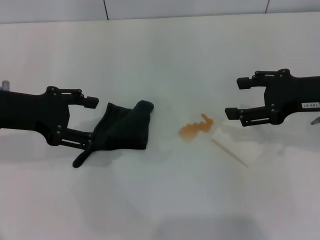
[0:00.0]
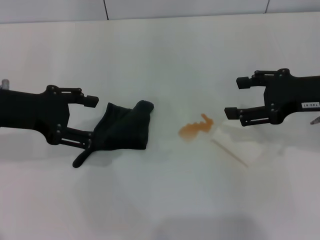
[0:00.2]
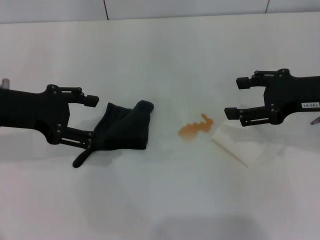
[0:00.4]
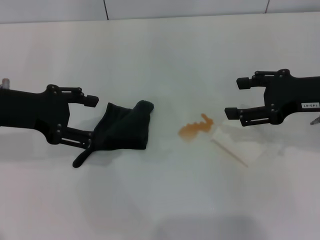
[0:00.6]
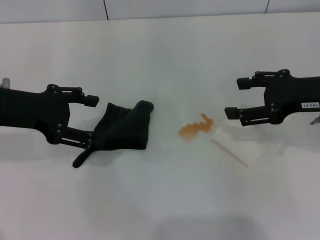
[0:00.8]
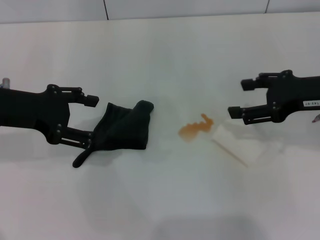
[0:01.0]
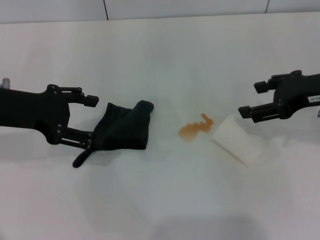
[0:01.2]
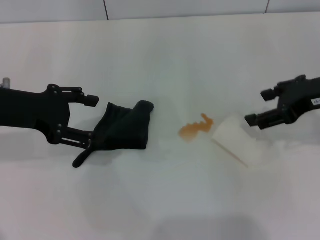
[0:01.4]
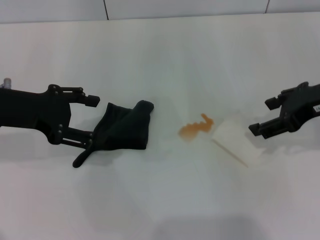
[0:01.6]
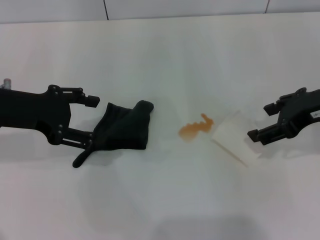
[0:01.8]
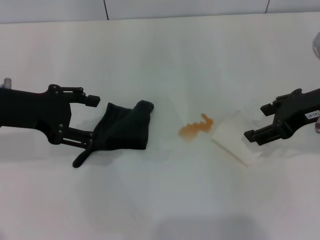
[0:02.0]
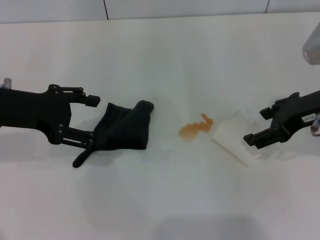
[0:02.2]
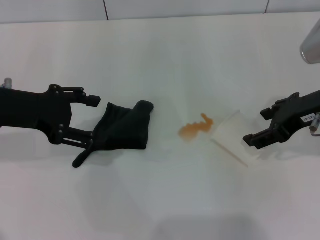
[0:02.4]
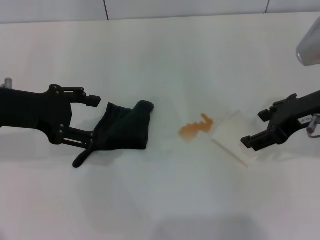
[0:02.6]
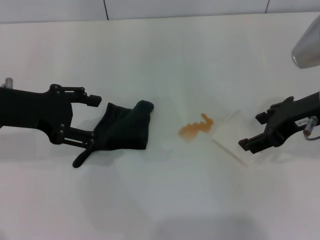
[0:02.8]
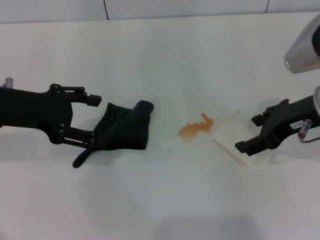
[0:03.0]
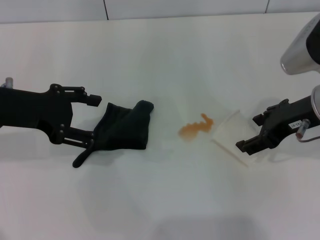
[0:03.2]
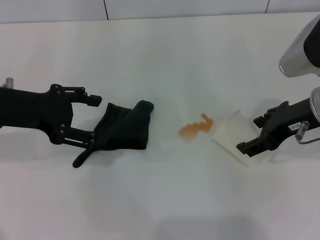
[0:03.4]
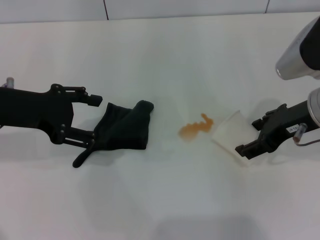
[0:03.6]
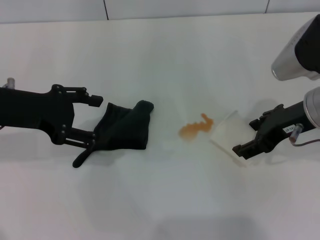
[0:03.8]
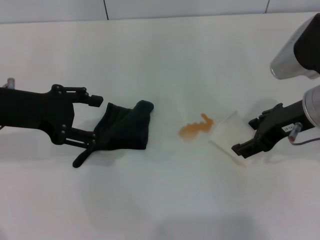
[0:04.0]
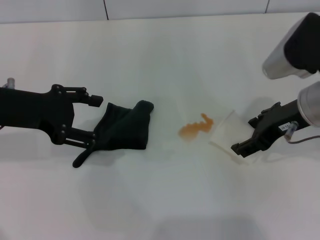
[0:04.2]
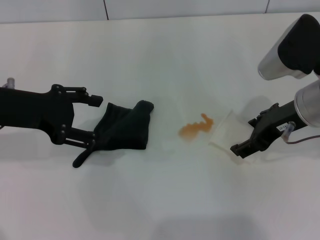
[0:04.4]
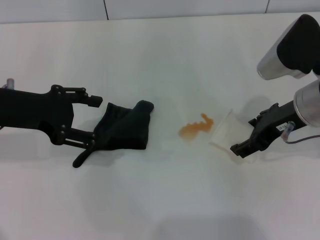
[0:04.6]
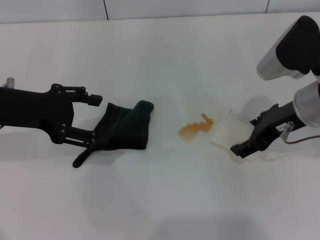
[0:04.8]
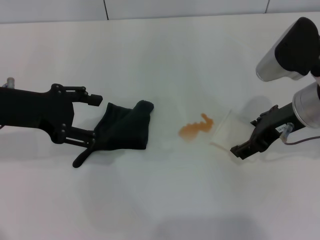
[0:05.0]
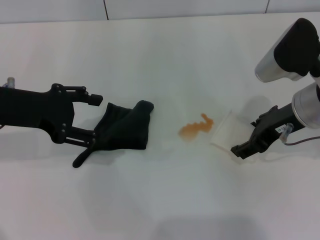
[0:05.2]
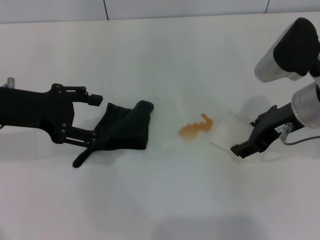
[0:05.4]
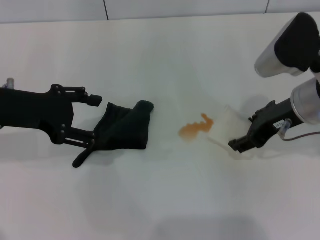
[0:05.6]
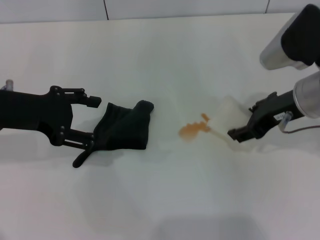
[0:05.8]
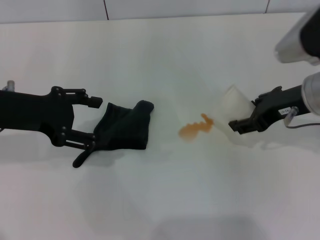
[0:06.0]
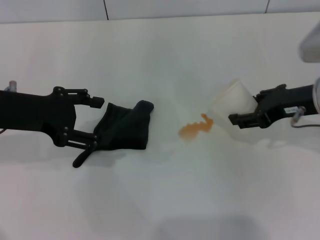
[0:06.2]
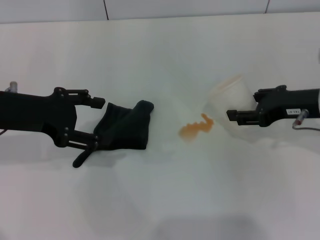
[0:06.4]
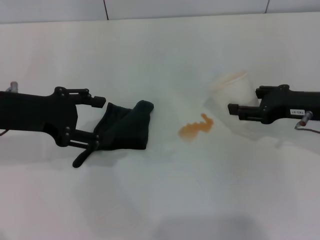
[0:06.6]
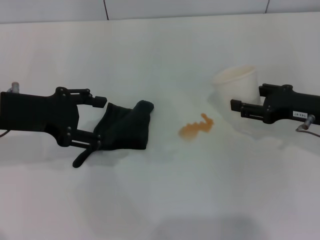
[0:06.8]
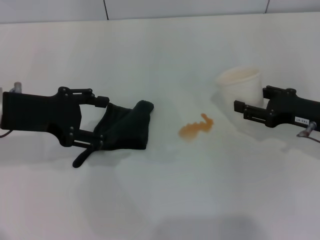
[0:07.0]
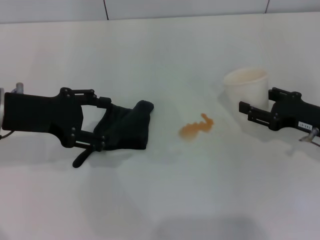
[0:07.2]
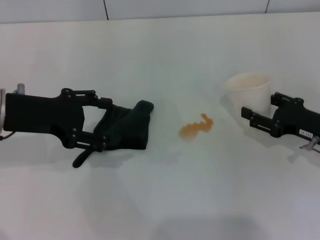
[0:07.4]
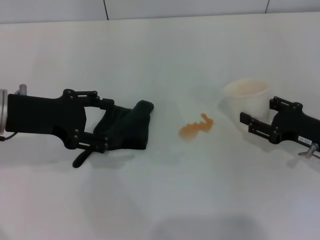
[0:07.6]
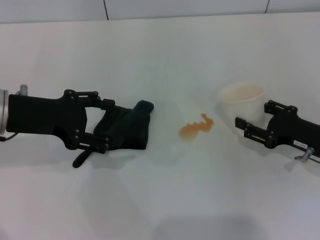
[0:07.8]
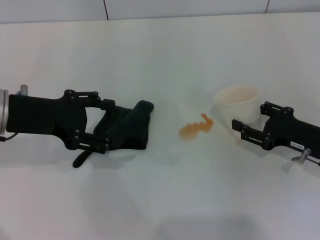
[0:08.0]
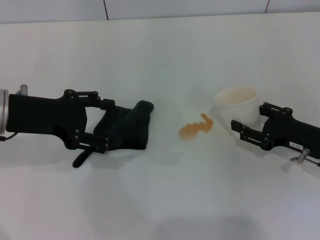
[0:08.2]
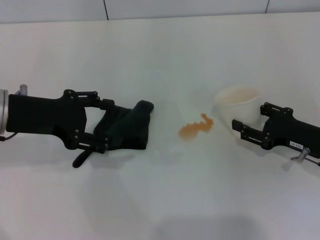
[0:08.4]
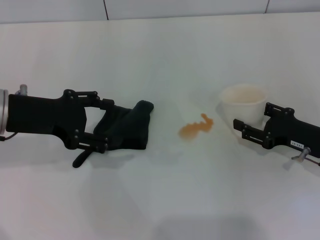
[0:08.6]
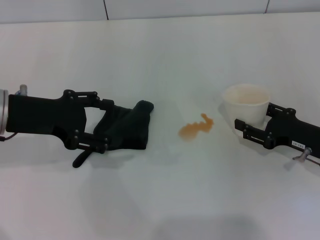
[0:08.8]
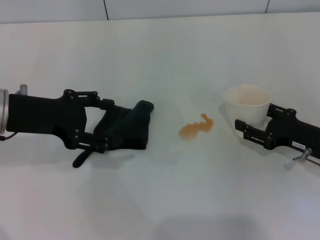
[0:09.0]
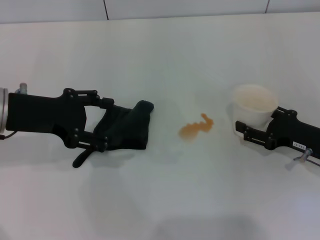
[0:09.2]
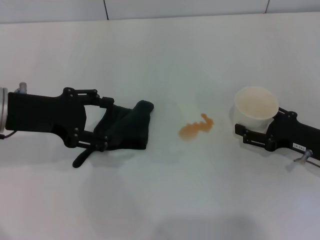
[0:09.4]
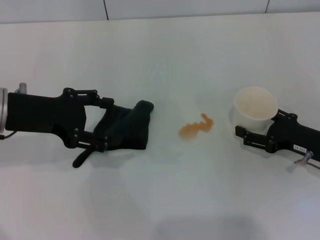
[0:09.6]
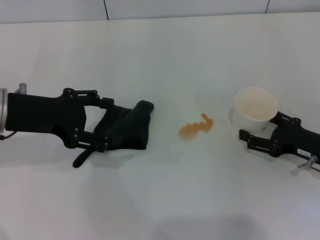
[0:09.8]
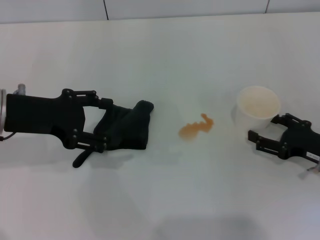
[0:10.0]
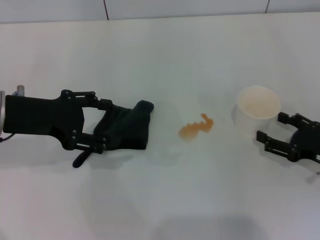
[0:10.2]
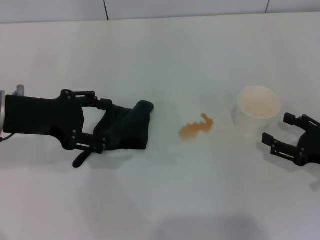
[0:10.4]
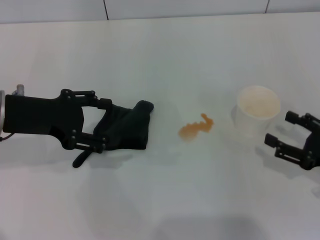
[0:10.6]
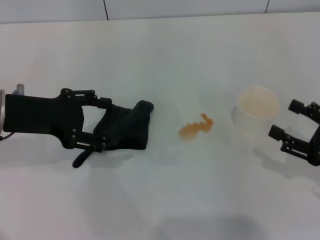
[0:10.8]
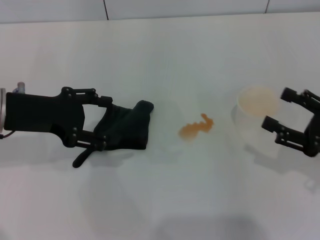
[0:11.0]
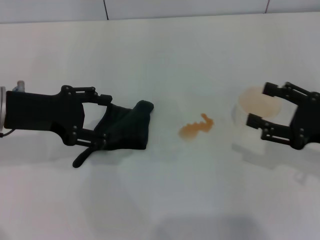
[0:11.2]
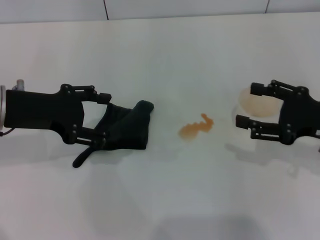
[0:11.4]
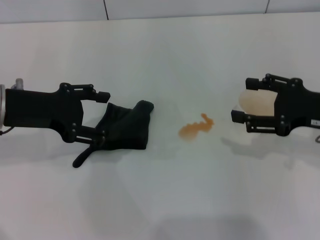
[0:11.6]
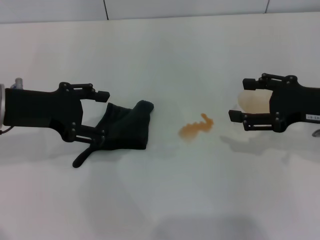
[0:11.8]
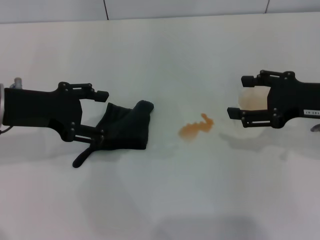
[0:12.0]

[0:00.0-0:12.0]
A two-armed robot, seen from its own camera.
Step, 0:00.0 to 0:05.2: Grasp the paper cup with the right gripper.
Step, 0:05.4 to 0:10.2: Stand the paper cup upright with the right gripper.
0:01.6 to 0:03.0: The grippers stay close to where they were, moving slightly.
0:03.0 to 0:04.4: There are only small adjustments of the grippers.
0:04.4 to 0:06.0: The right gripper closes.
0:06.0 to 0:07.6: The right gripper shifts some 15 cm downward and to the right.
0:07.6 to 0:09.0: Neither gripper changes place.
0:09.0 to 0:10.4: The right gripper shifts by about 5 cm, and opens up.
0:10.4 to 0:12.0: The right gripper heads upward, forward and to the left, covering roughly 15 cm.

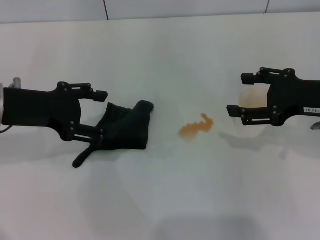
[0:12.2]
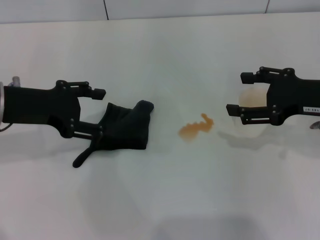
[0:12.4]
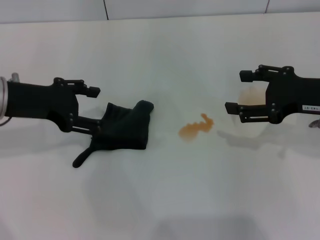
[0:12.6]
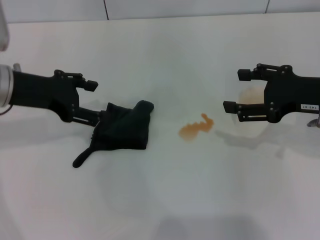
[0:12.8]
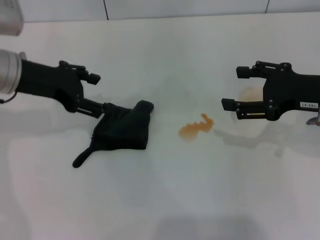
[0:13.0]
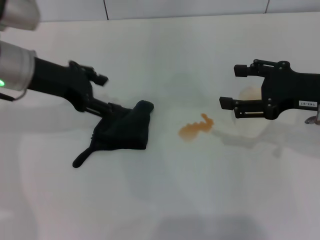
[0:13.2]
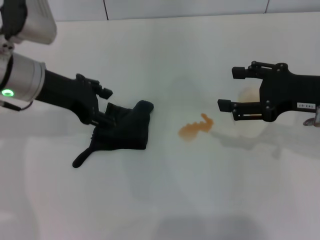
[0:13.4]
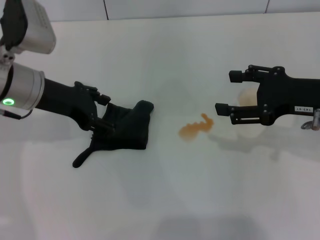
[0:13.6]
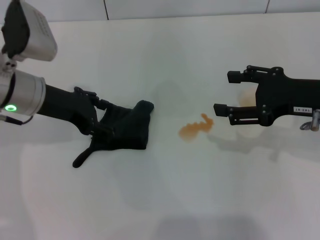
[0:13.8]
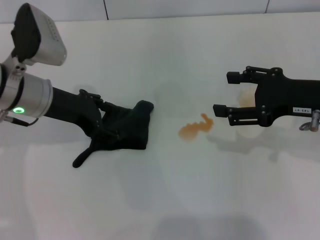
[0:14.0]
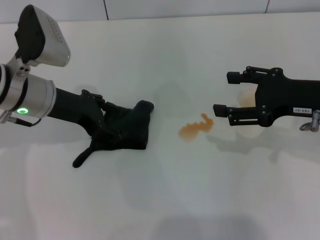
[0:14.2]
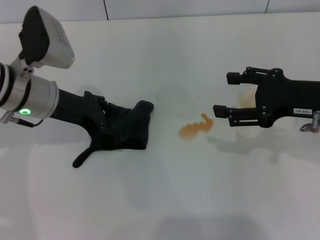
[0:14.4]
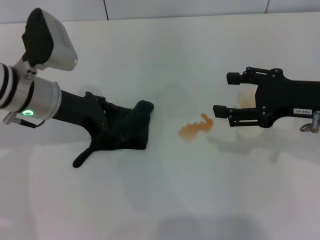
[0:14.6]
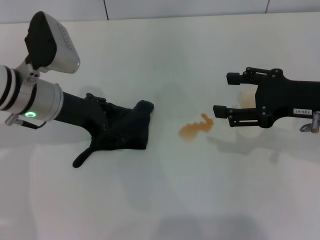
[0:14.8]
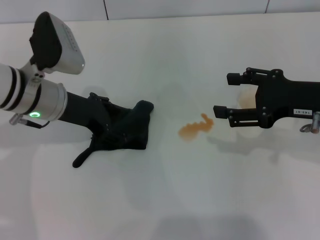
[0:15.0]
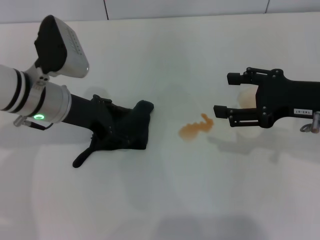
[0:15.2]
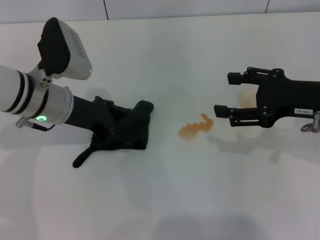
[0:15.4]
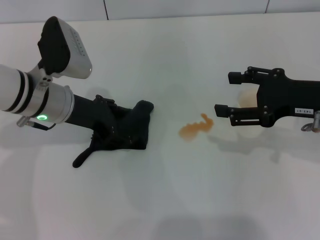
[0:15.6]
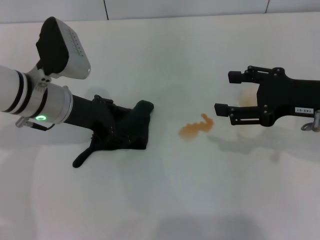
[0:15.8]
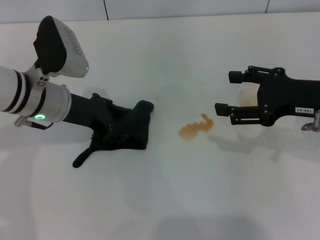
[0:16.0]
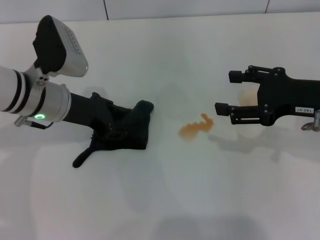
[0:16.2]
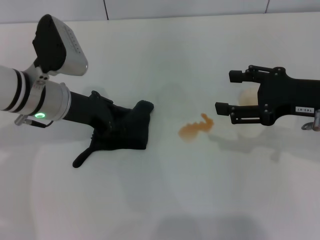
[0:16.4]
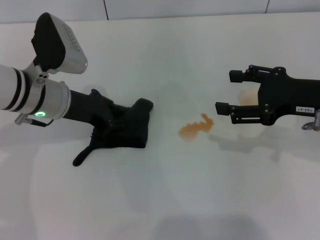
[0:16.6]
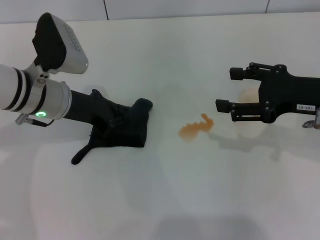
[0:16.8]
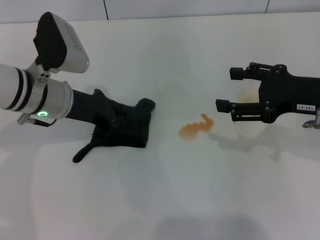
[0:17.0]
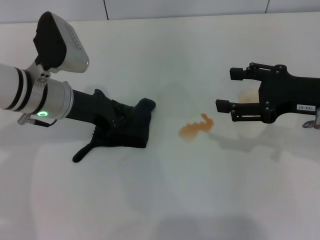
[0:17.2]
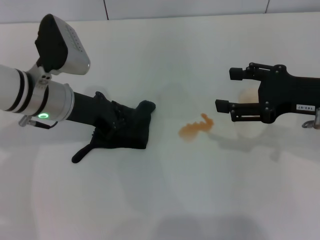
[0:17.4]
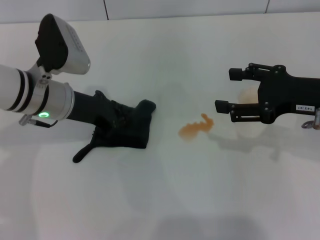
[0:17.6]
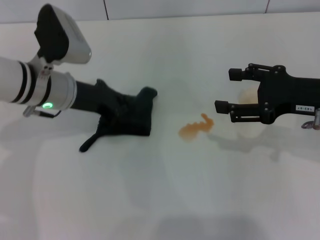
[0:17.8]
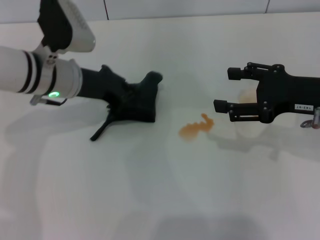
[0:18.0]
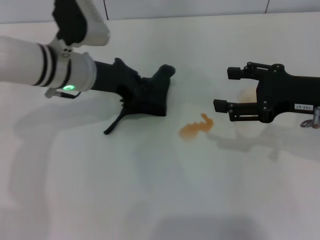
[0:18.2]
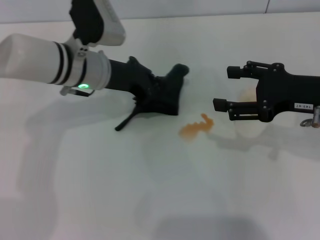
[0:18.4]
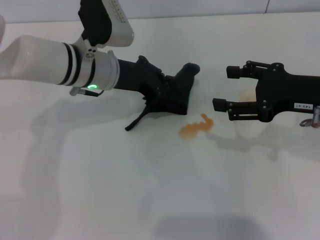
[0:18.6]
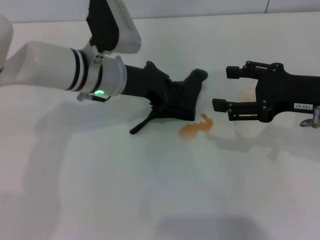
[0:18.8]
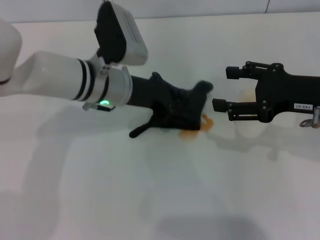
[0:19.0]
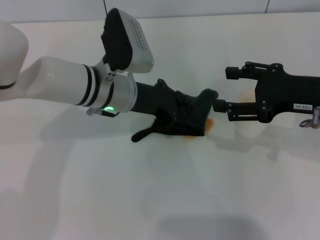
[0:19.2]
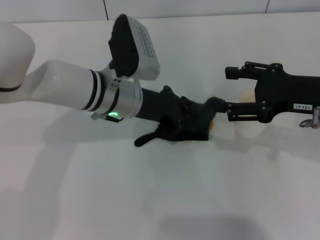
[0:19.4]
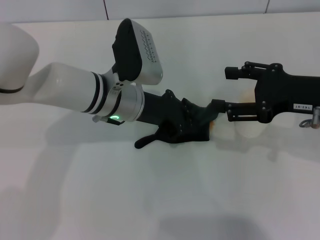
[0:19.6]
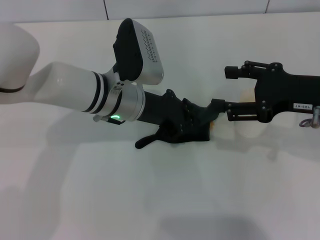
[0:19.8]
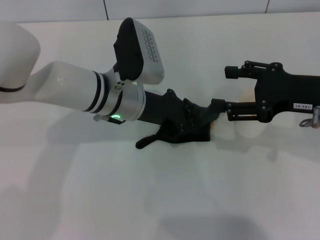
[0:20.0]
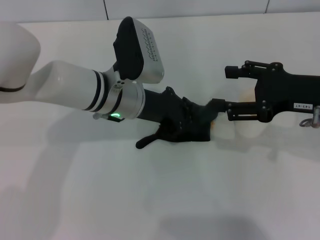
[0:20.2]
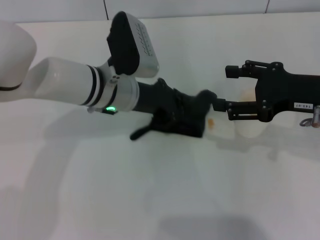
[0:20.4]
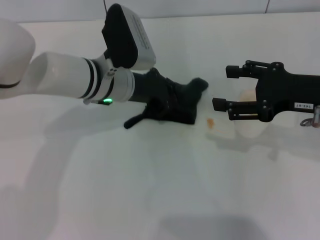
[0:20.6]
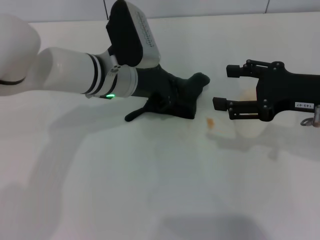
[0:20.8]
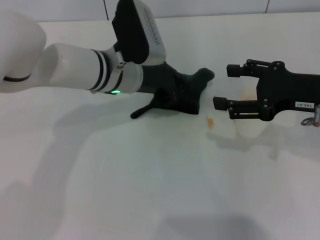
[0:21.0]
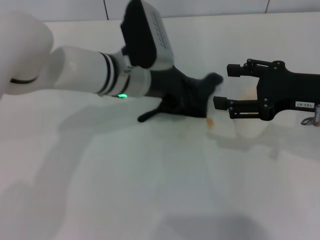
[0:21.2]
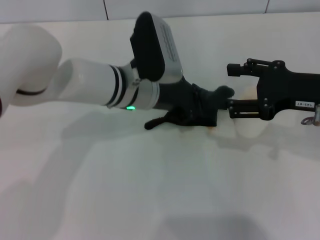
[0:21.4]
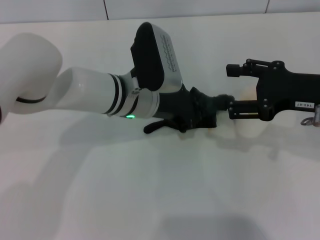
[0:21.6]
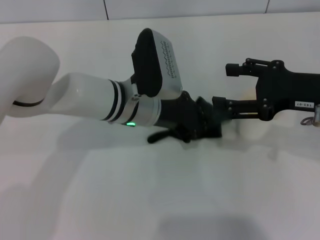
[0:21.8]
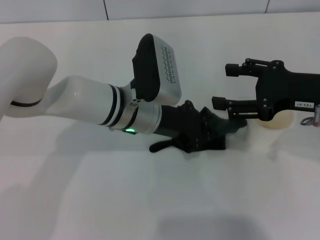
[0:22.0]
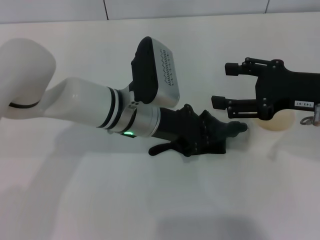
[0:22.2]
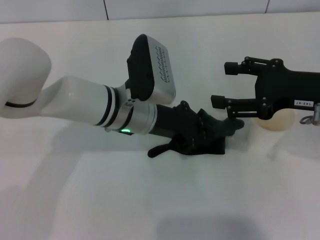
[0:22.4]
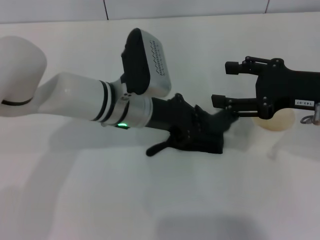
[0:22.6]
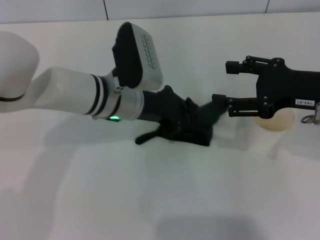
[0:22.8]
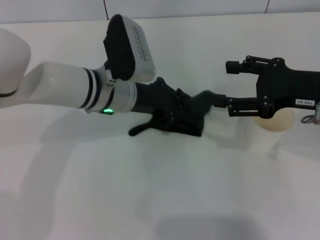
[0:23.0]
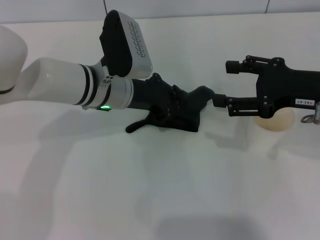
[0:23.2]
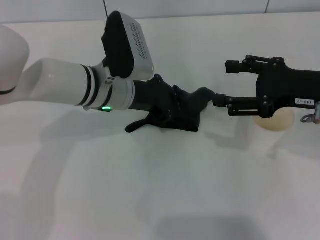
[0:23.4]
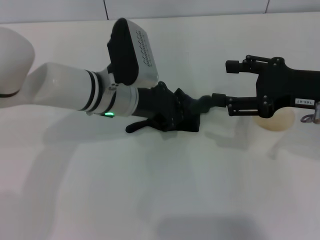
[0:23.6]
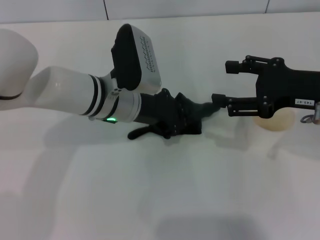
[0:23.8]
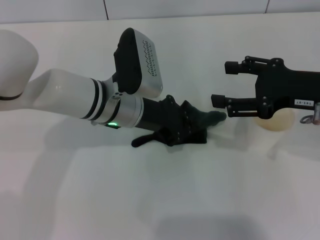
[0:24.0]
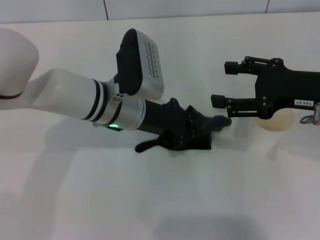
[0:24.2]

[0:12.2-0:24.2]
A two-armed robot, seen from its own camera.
Step, 0:12.2 to 0:16.8: Grasp the rag with the left gripper.
0:12.2 to 0:13.8: The left gripper moves approximately 5 cm.
0:13.8 to 0:15.2: The grippers make only small movements.
0:15.2 to 0:16.6: The left gripper closes.
0:16.6 to 0:18.2: The left gripper closes its fingers.
0:18.2 to 0:19.8: The left gripper moves to the right, approximately 5 cm.
0:19.8 to 0:21.2: The grippers move only a little.
0:22.6 to 0:24.2: There are only small adjustments of the grippers.
